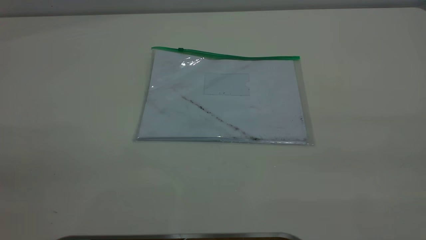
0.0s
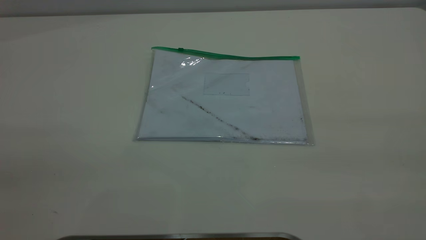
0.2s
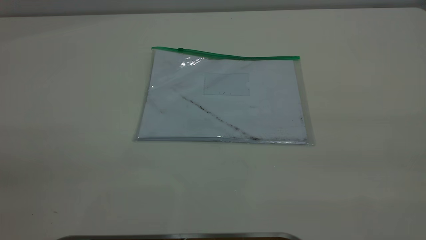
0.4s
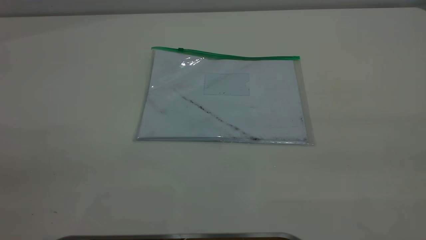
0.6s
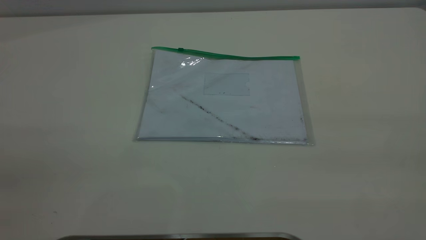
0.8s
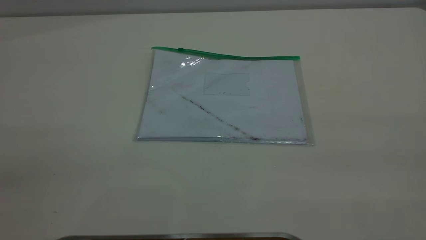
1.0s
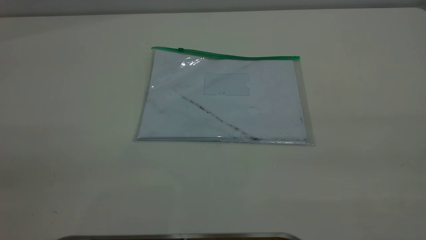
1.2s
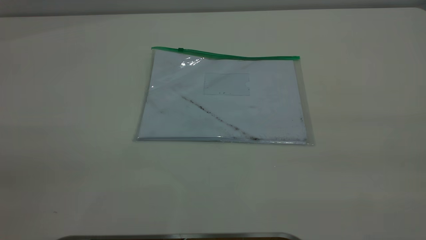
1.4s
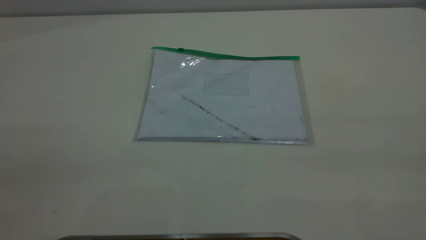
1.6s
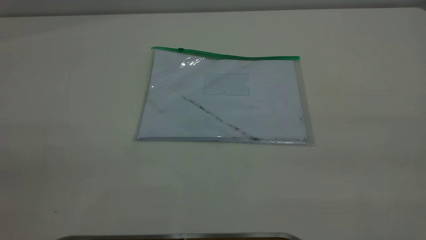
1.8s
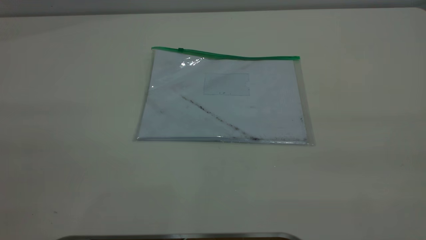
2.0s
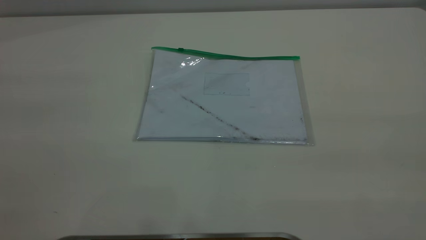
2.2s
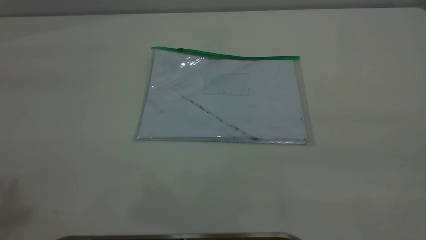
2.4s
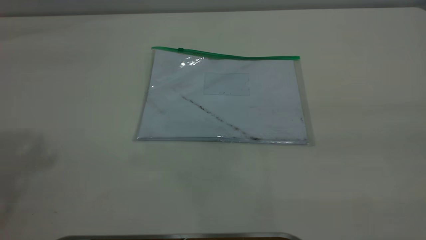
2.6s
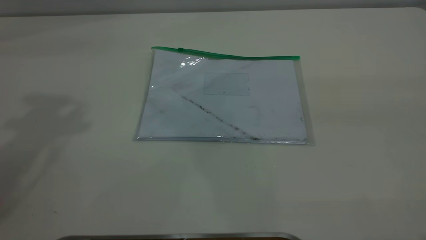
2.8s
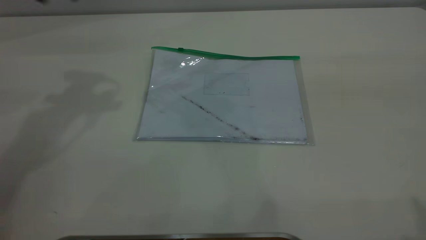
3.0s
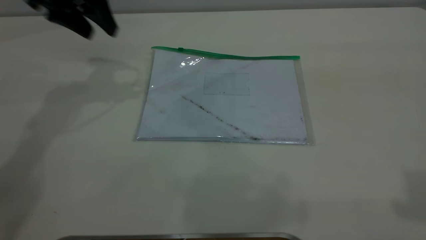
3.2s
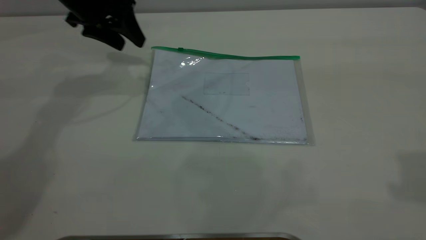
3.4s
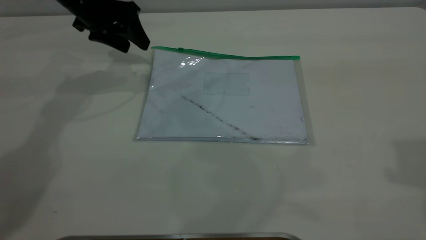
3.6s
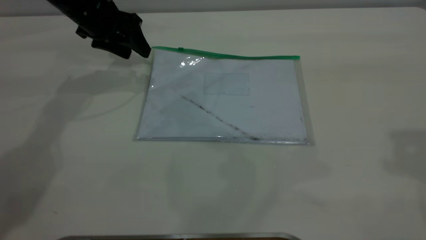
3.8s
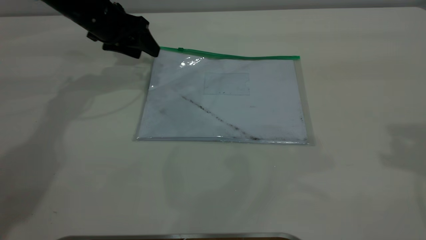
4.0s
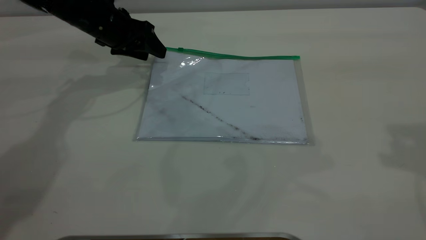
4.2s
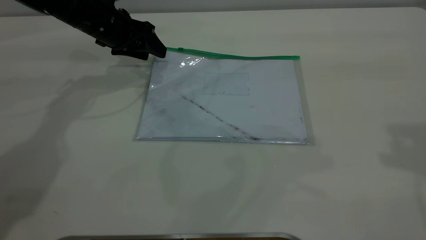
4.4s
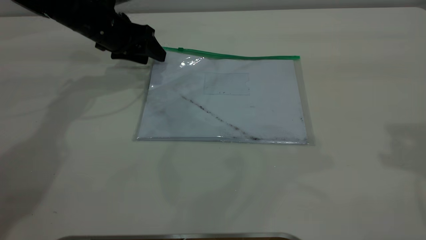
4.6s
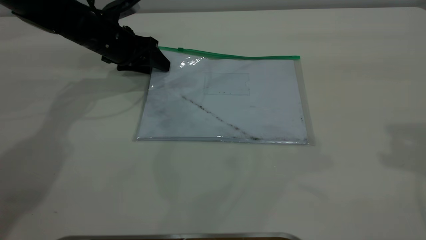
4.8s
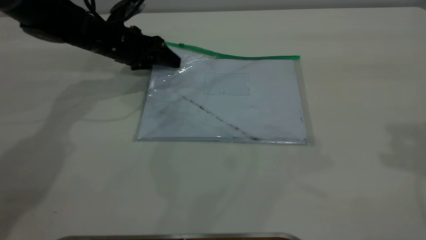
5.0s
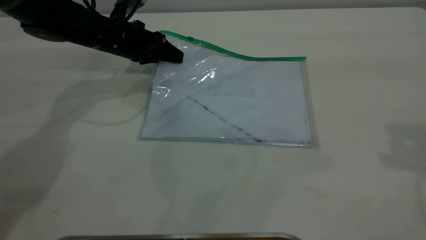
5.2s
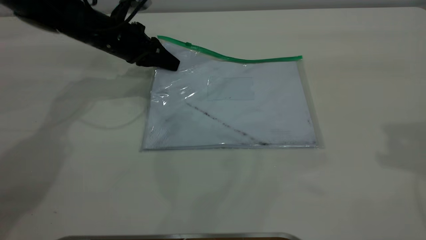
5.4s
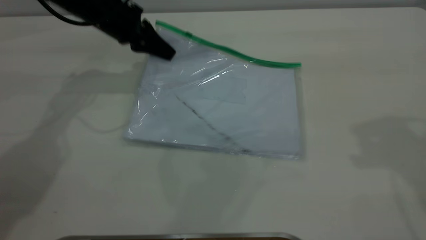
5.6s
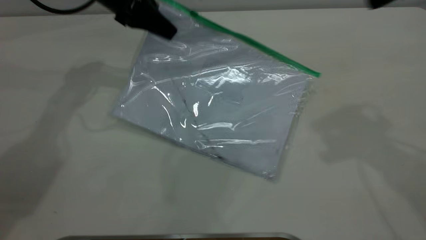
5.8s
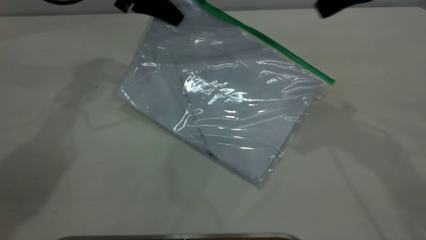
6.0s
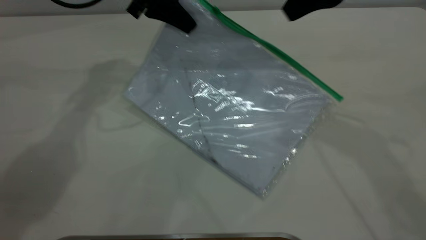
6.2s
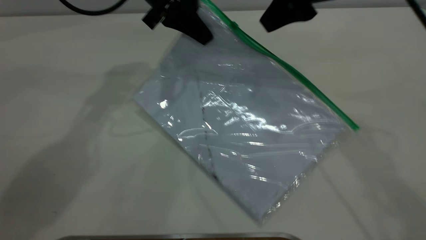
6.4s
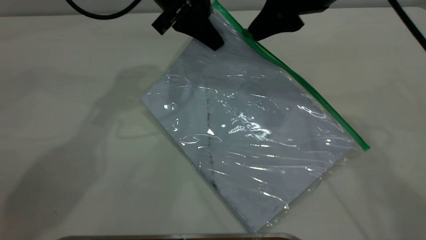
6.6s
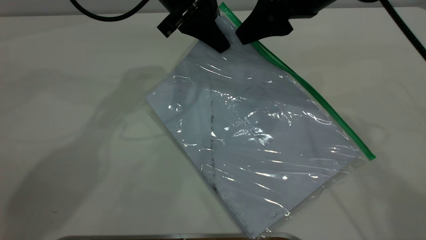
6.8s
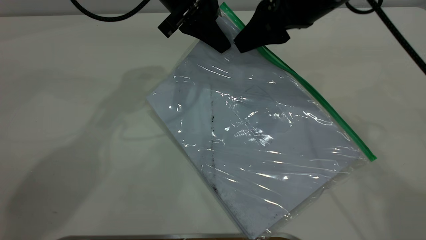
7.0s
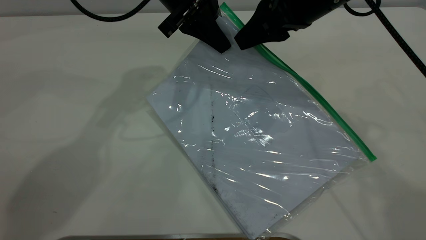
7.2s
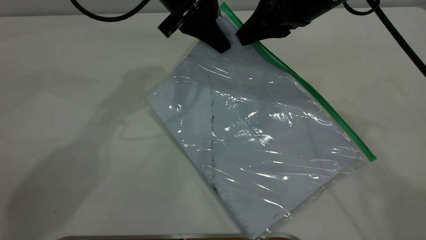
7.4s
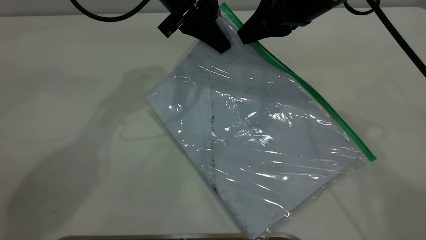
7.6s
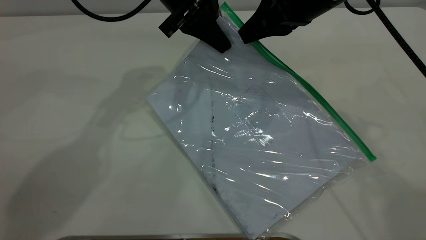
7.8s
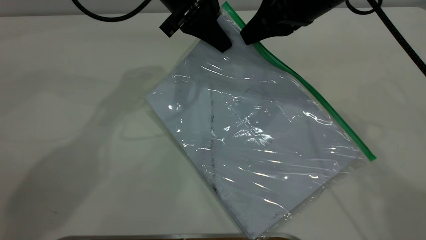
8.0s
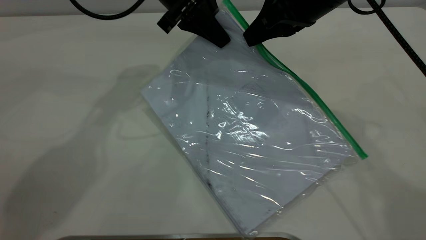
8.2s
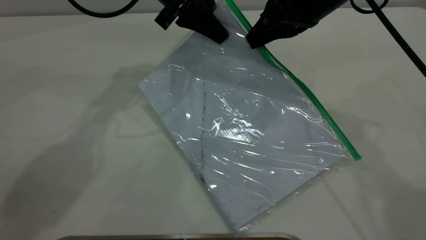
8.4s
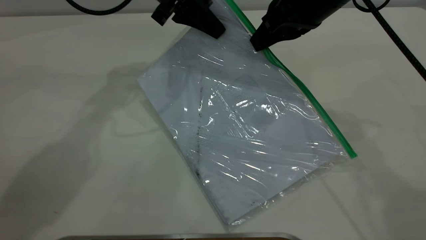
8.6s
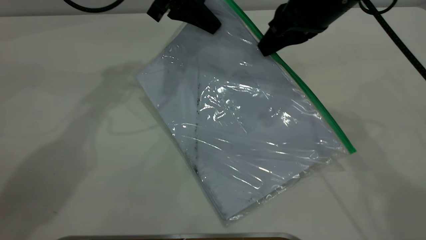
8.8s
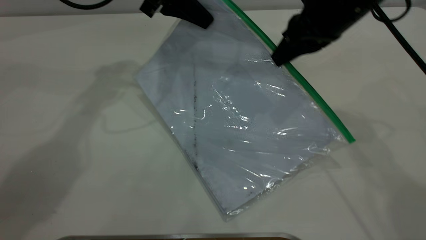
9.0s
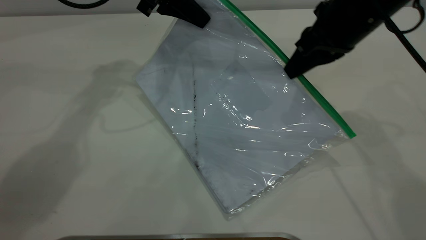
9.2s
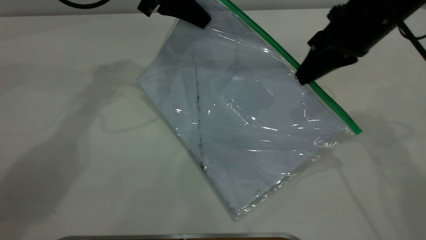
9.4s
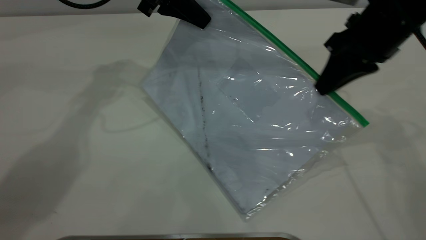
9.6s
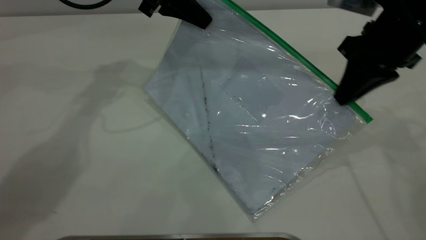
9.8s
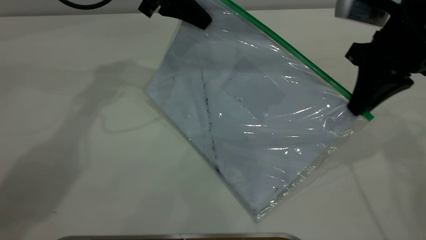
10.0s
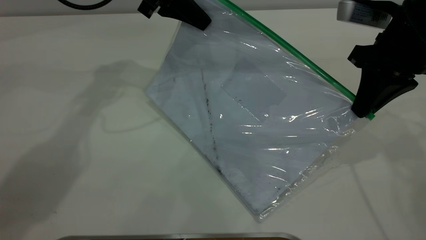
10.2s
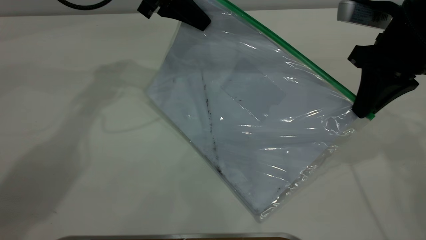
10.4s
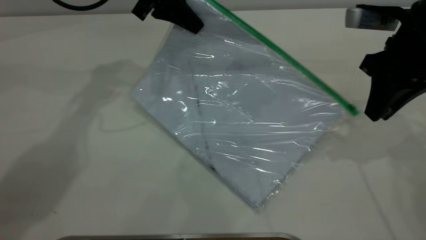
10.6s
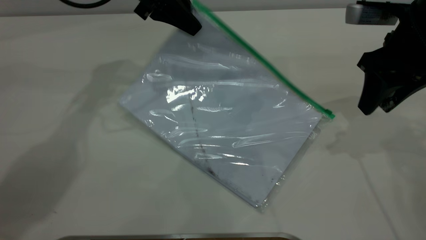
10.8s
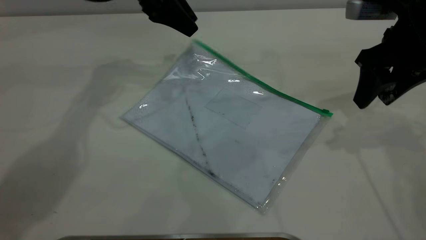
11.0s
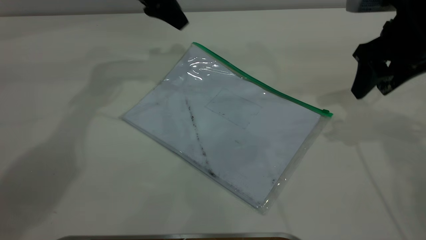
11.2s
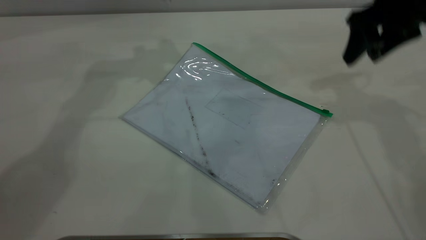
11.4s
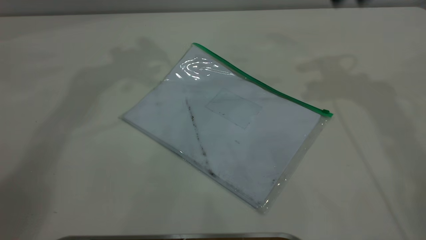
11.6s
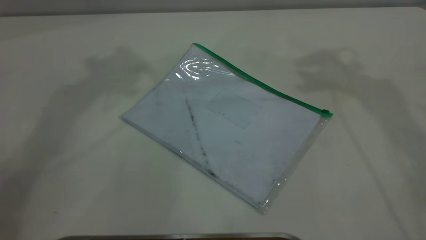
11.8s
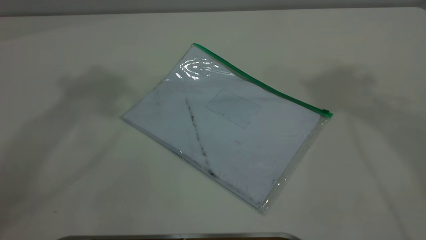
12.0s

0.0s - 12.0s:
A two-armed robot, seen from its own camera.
Step, 0.0s - 5.4s: Pick up the transparent plastic bag with the left gripper.
Step, 5.6s - 10.6s: Pulling up the zipper on the transparent plastic bag with the right gripper to close it.
0.0s - 1.6s: Neither gripper changes place.
3.0s - 4.4s: The left gripper travels downward and forward by some 20 cm, while the right gripper travels forward and downward by some 15 cm.
4.4s - 6.0s: The right gripper is displaced to the left and forward by roughly 15 cm. Meanwhile the left gripper is displaced upward and to the right by about 10 cm, and closes its fingers.
6.0s - 7.6s: The left gripper moves to the right, some 10 cm; the right gripper heads downward and to the left, covering approximately 10 cm, and closes.
7.6s - 9.0s: The left gripper shifts by some 5 cm.
9.0s - 10.4s: The right gripper goes about 5 cm to the right.
10.4s - 12.0s: Both grippers travel together upward, about 35 cm. The right gripper opens, while the left gripper opens.

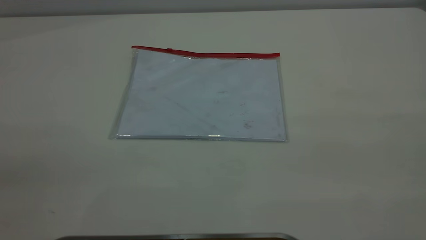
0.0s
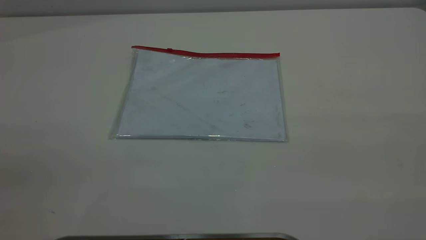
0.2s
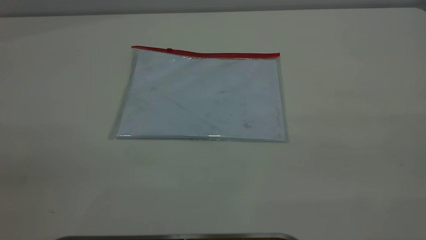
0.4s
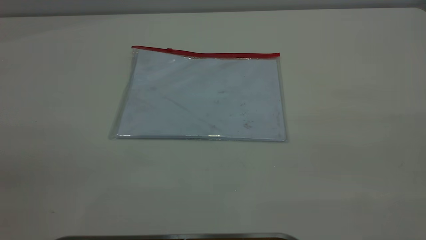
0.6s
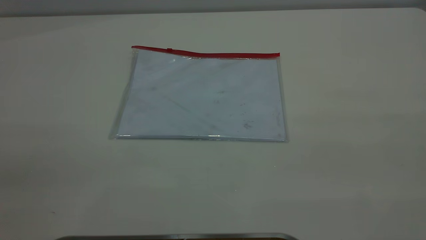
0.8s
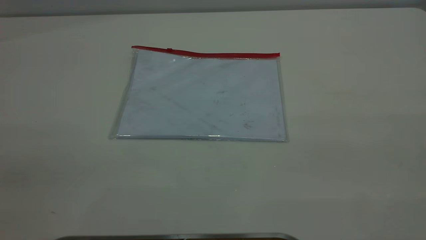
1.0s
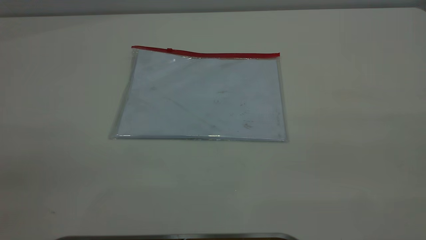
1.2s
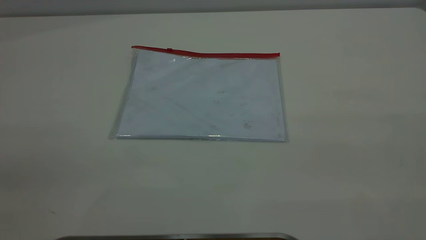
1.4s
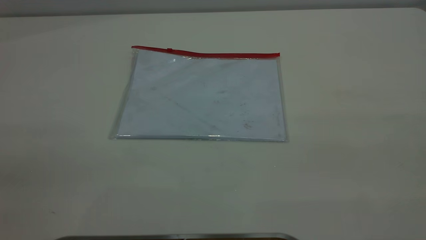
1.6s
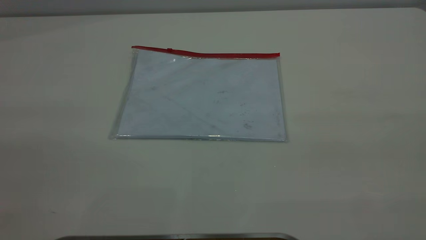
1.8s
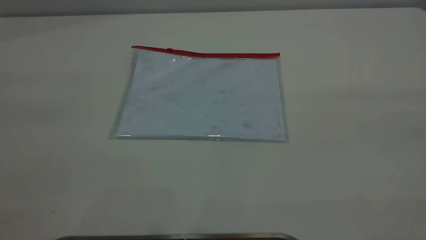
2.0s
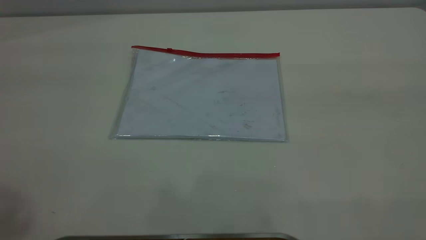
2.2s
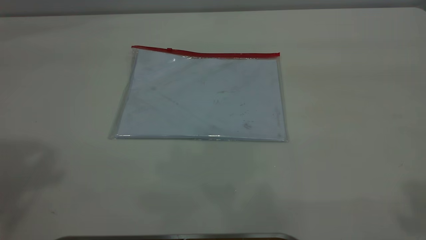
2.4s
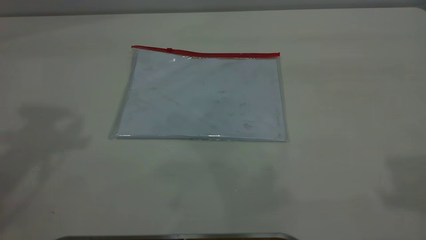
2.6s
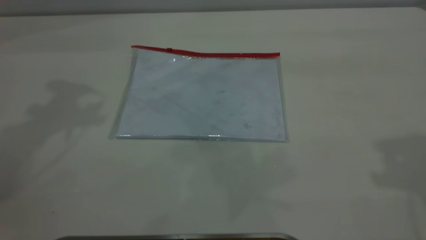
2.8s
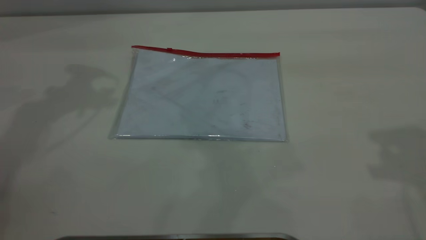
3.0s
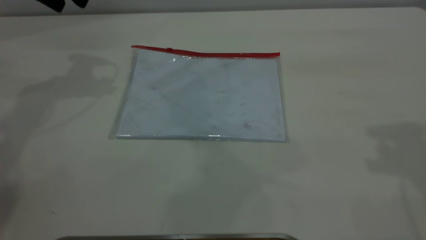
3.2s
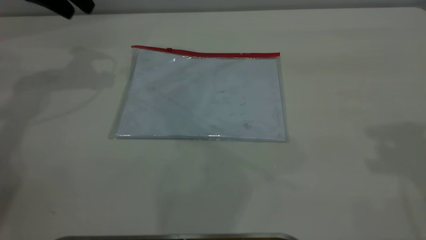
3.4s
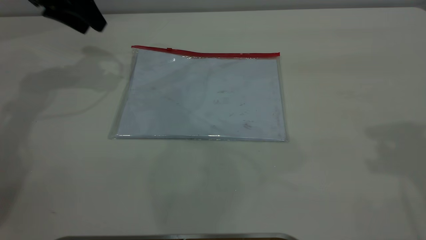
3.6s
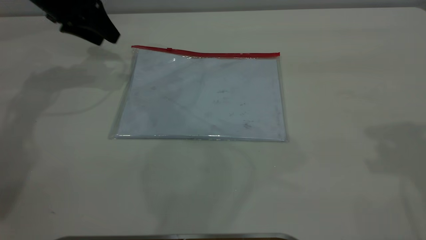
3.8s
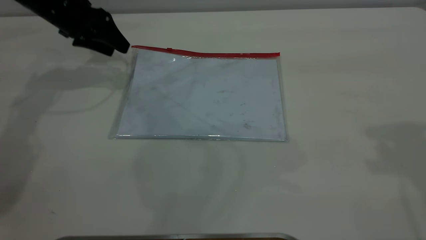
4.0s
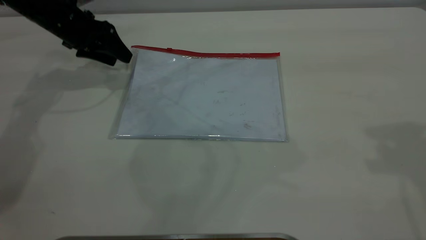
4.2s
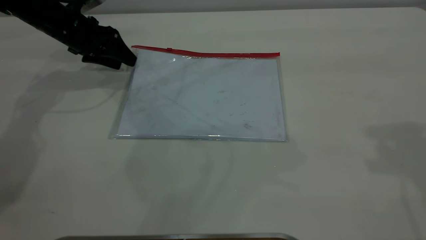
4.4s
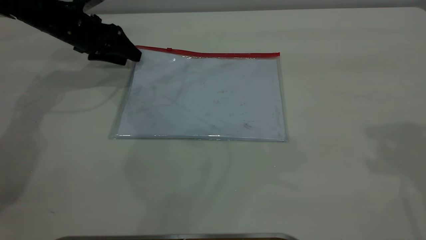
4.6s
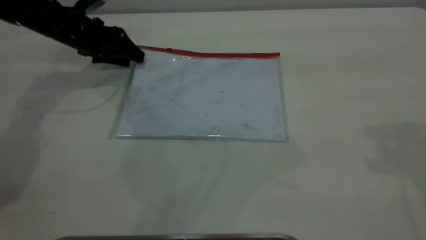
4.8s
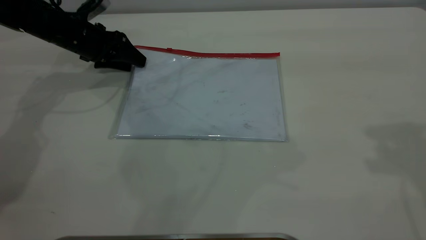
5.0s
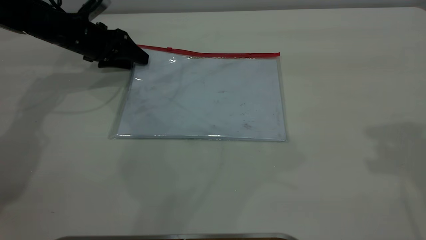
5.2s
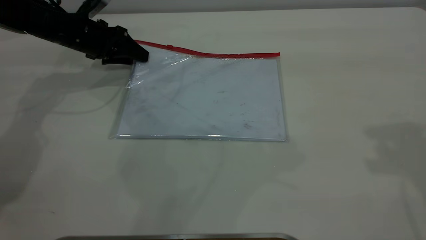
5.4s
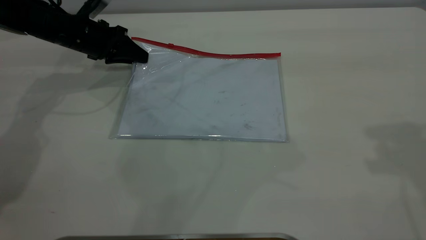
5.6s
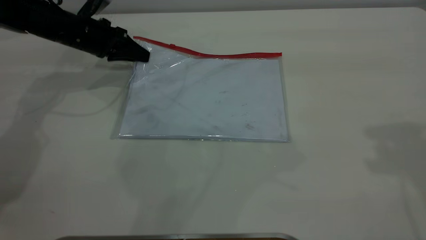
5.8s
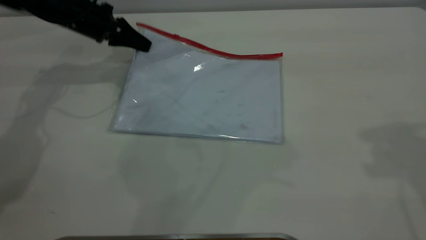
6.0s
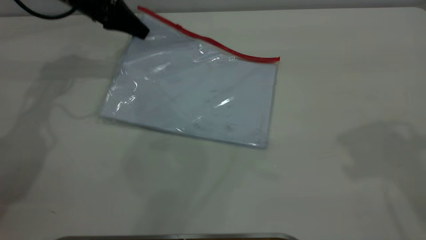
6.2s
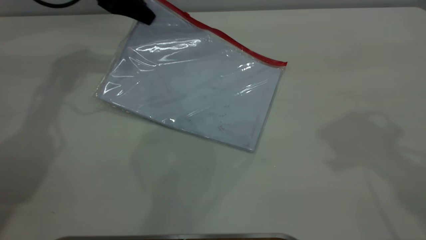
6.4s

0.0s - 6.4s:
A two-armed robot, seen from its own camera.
Step, 0.0s - 6.0s: Pick up the transparent plastic bag with the left gripper.
0.0s - 1.6s: Both grippers stay put.
3.2s - 4.8s: The left gripper goes roughly 20 cm downward.
4.8s - 6.4s: The right gripper travels to the left by some 5 cm, while the left gripper travels upward and to the right by some 10 cm, and closes its fingers.
